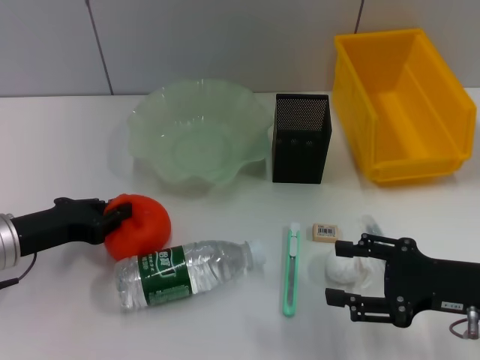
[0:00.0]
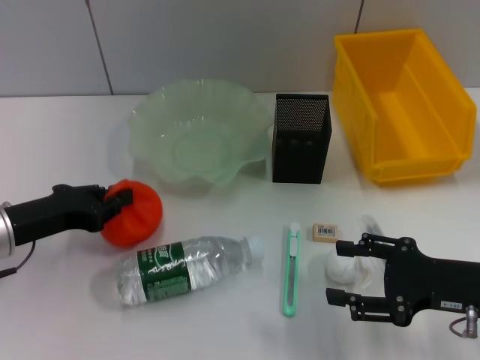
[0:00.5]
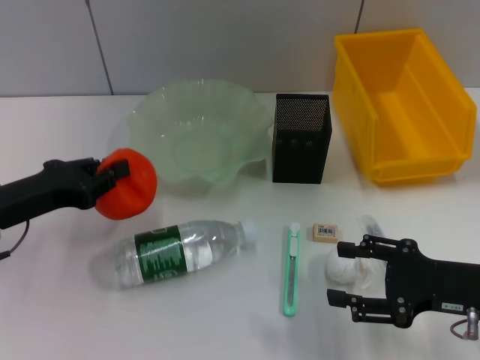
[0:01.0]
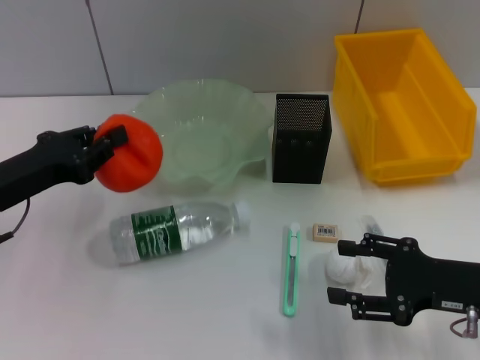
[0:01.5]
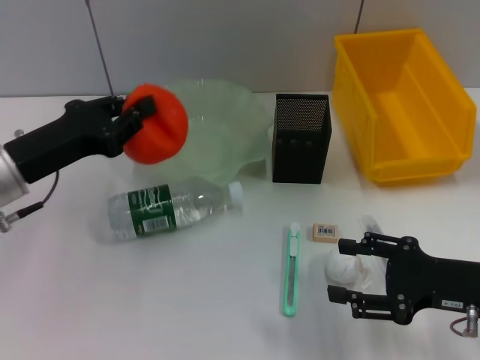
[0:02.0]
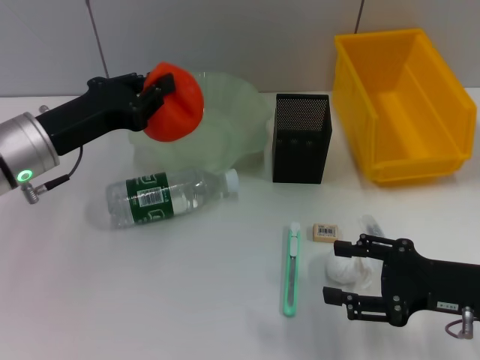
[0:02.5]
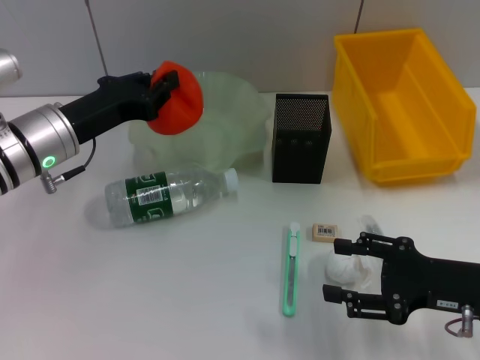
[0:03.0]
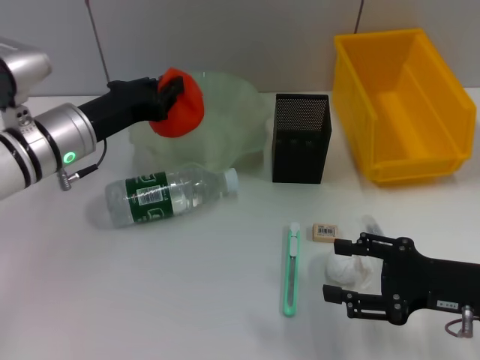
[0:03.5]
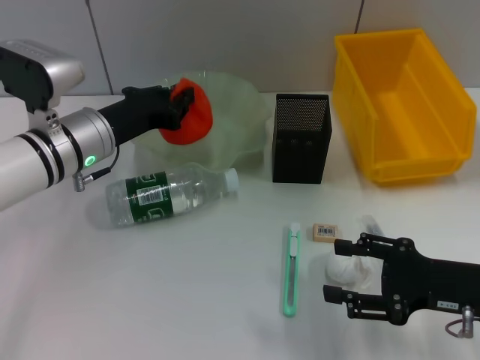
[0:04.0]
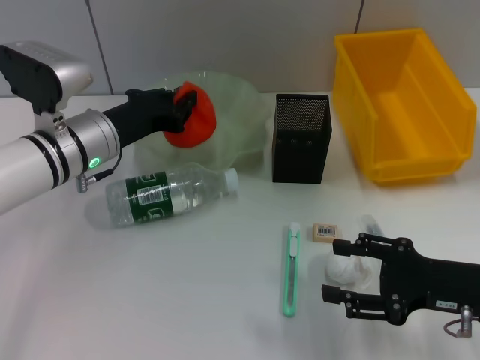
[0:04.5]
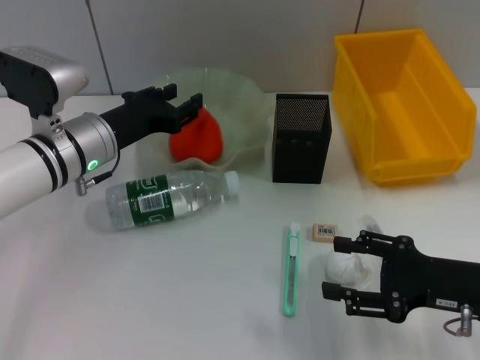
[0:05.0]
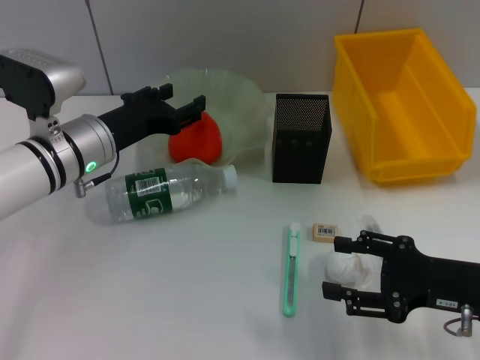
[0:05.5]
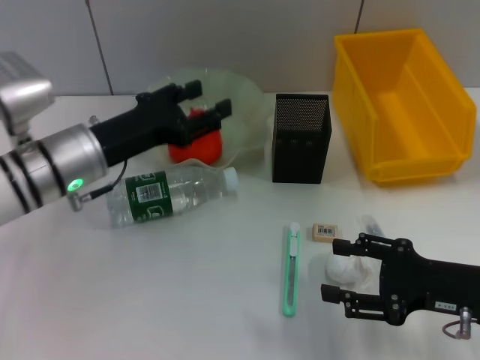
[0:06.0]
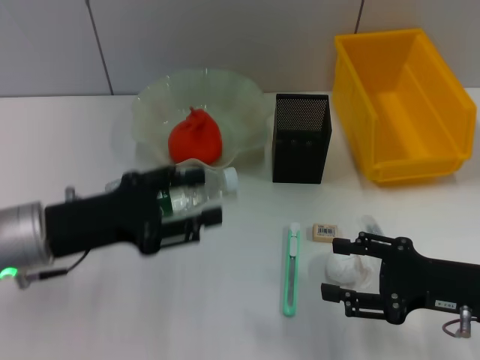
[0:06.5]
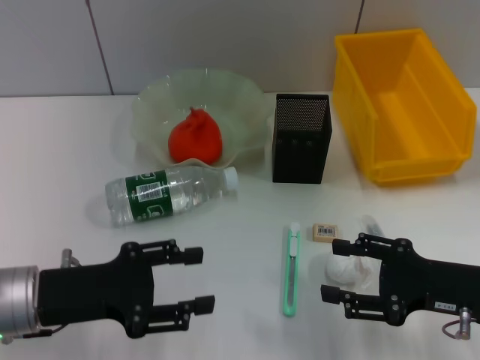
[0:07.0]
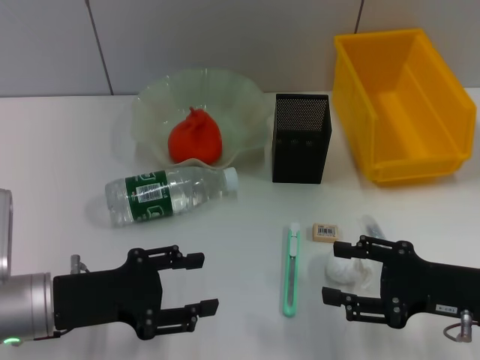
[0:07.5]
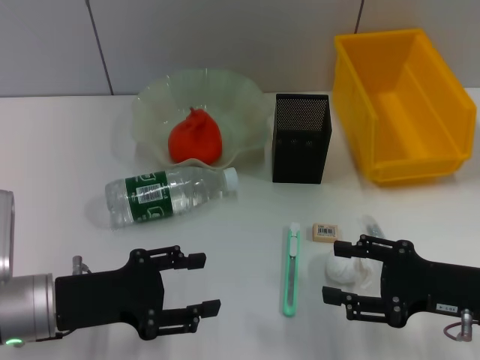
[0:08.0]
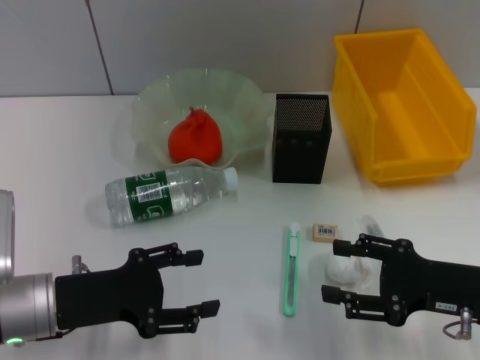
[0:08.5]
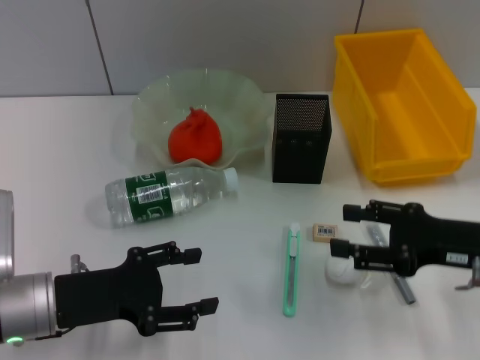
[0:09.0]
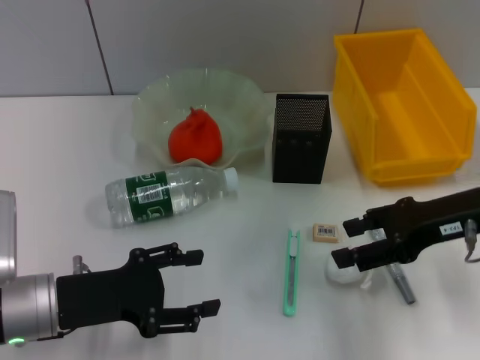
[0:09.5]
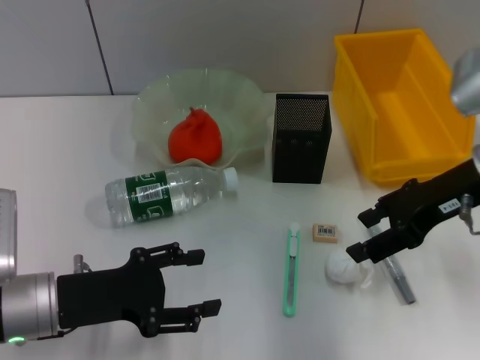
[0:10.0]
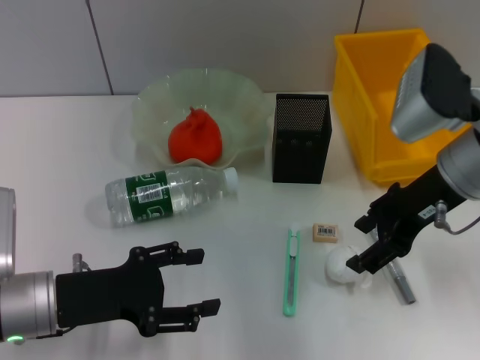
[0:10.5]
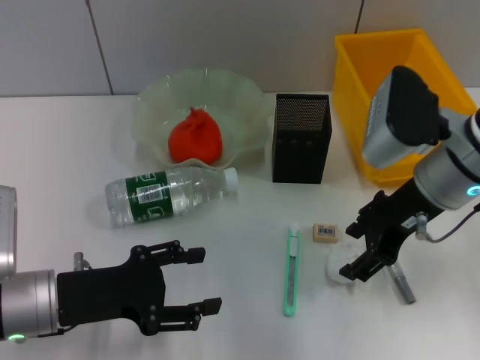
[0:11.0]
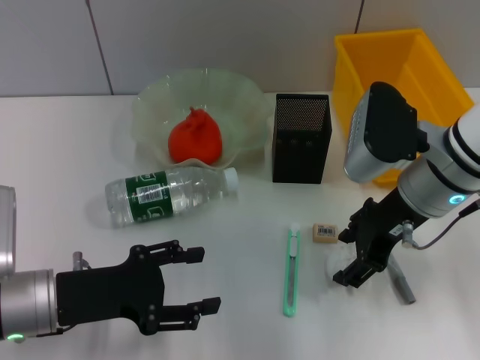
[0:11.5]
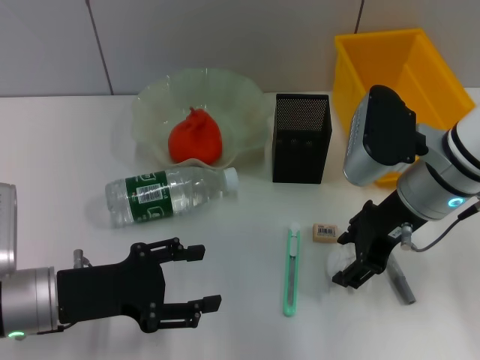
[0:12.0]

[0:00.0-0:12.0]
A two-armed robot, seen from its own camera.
Step, 0.5 to 5.0 s: Place the orange into the fruit bowl with the left hand.
0.0 to 2.0 s: The left gripper is displaced upward by roughly 5 cm.
2.0 to 4.0 s: The left gripper travels forward and to the right by roughly 10 cm.
4.0 to 6.0 s: The left gripper opens up.
6.0 to 8.0 s: The left gripper heads backward, covering approximately 10 cm.
8.0 to 10.0 s: The right gripper heads upward and forward, covering some 15 cm.
10.0 to 12.0 s: The right gripper shifts roughly 5 cm to the left.

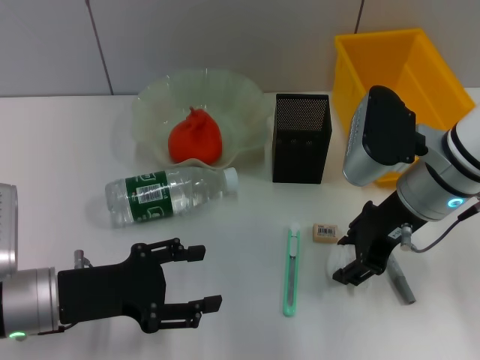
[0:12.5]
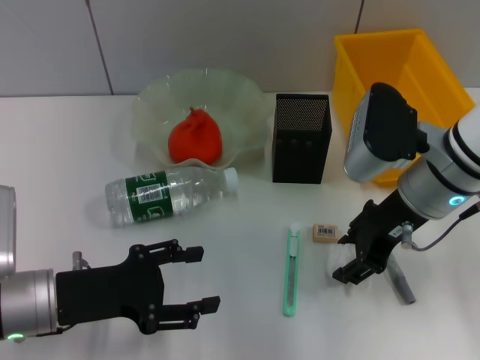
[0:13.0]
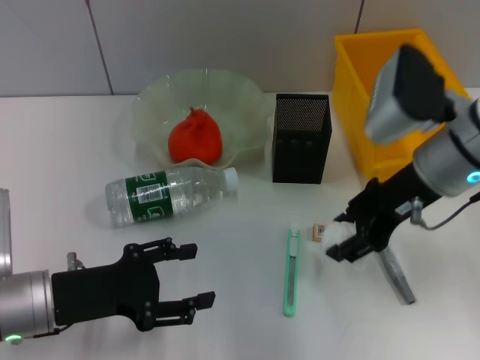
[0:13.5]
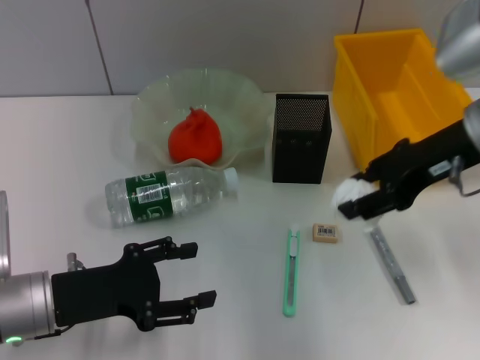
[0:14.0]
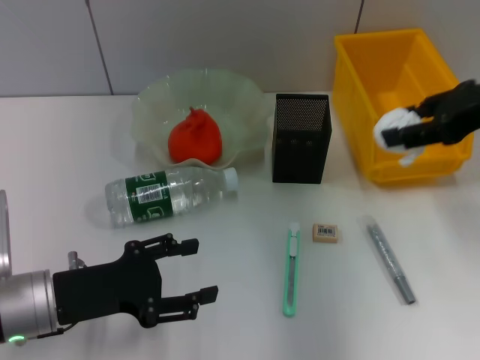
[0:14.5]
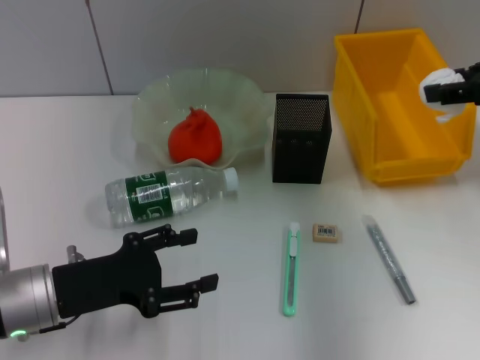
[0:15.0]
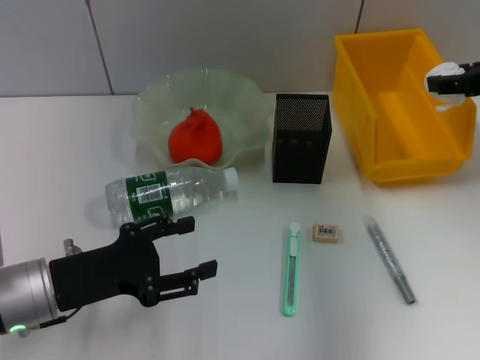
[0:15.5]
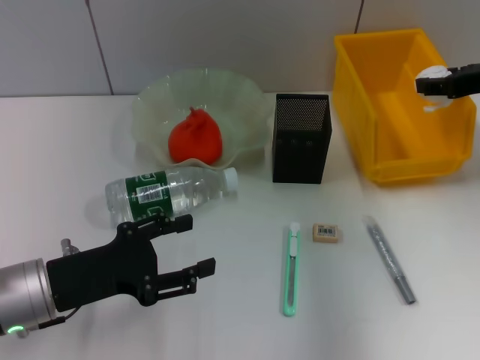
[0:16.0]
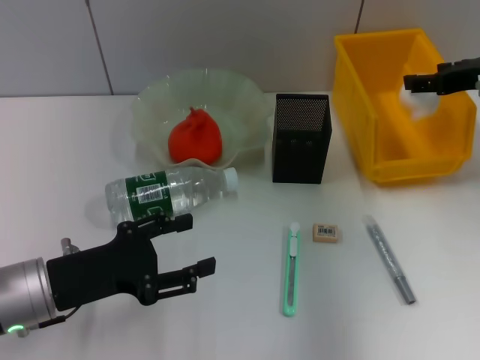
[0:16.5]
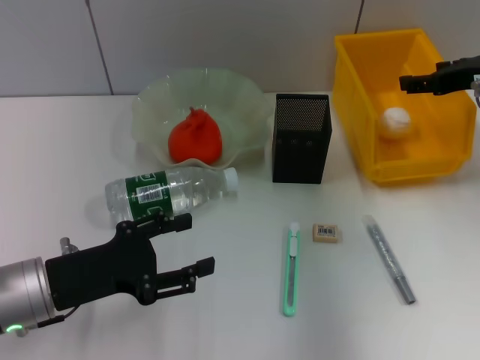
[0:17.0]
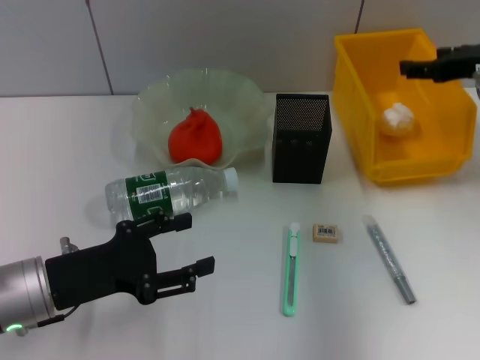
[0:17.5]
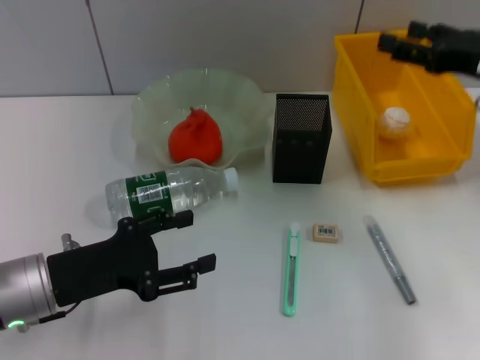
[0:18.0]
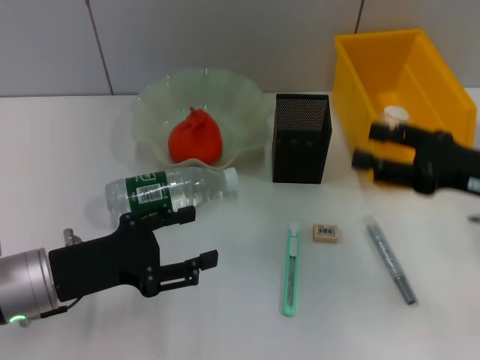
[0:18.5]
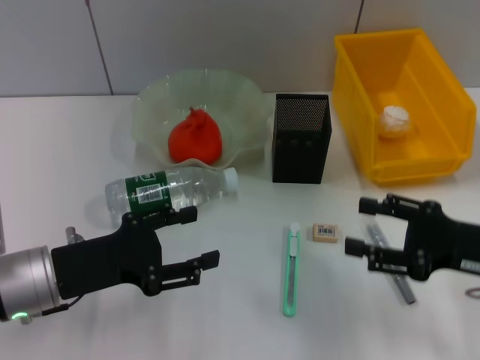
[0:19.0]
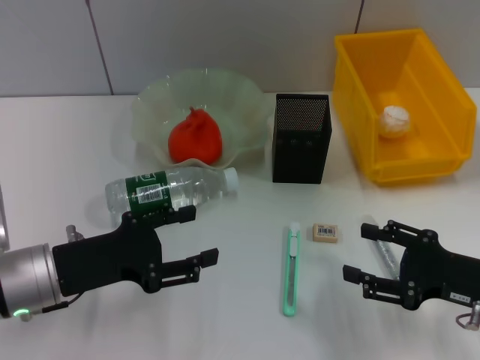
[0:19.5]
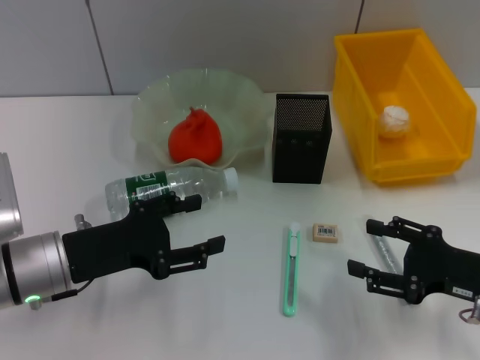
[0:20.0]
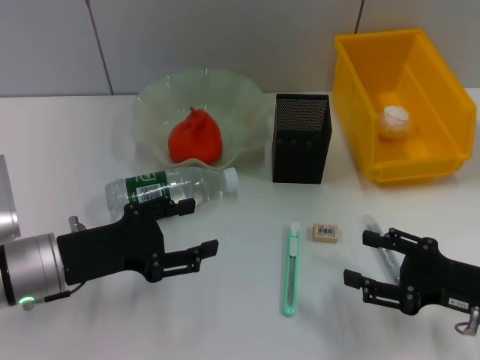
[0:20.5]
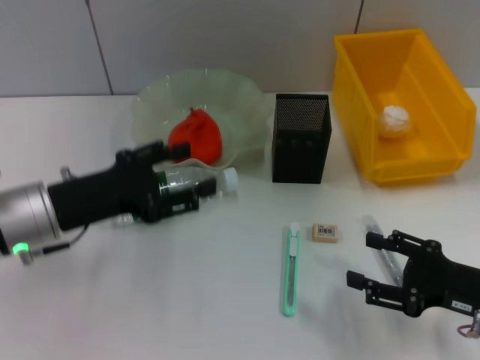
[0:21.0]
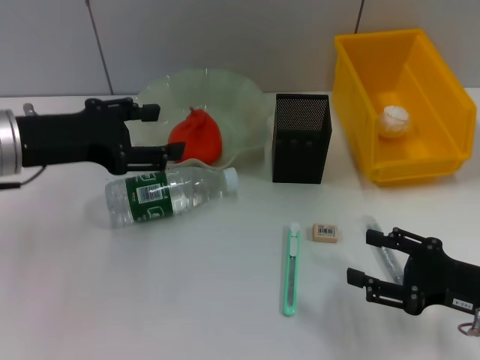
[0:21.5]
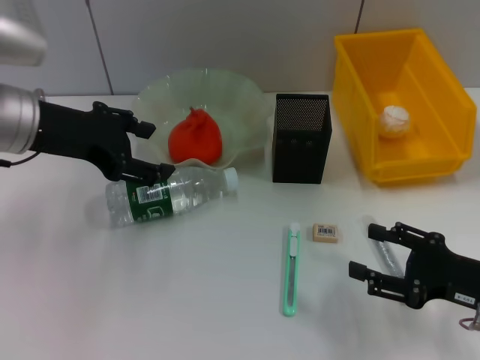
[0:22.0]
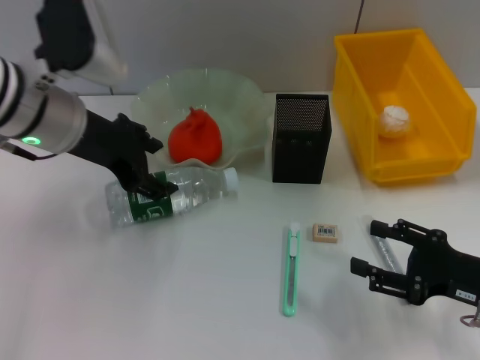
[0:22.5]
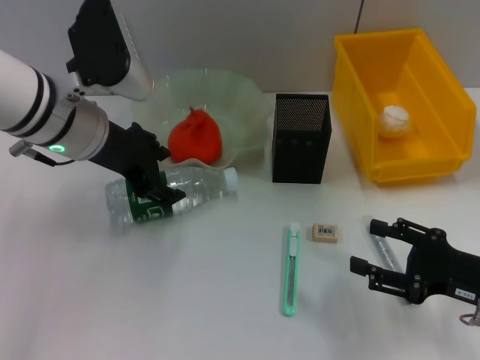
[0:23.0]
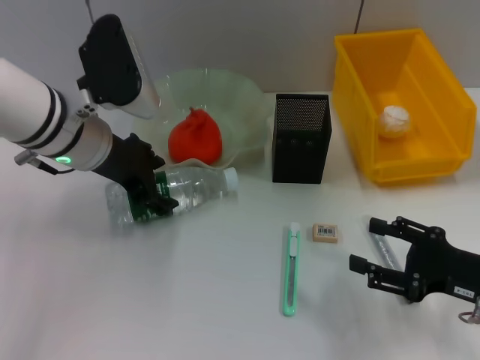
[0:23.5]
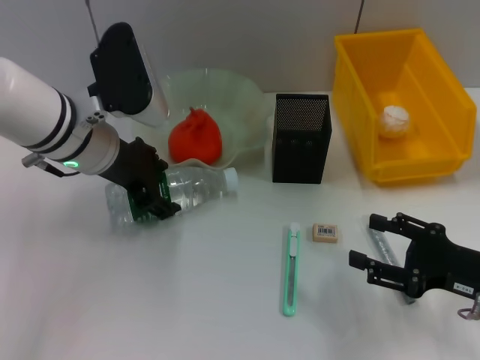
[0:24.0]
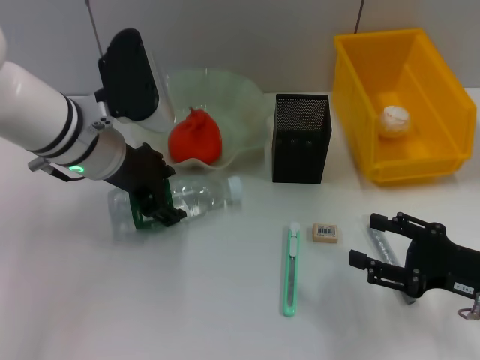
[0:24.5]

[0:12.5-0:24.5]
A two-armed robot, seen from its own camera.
Step, 12.5 to 16.5 s: Place the paper ball into the trash can with the right hand.
12.5 to 14.5 s: The right gripper heads to the right and upward, covering about 15 cm.
14.5 to 16.5 s: The right gripper moves forward and downward, some 10 cm.
16.5 to 18.5 s: The right gripper goes about 15 cm backward and downward.
18.5 to 20.5 s: The right gripper shifts roughly 10 cm downward and backward.
20.5 to 22.5 s: The left gripper travels upward and forward by approximately 15 cm.
22.5 to 24.5 s: The left gripper moves some 5 cm.

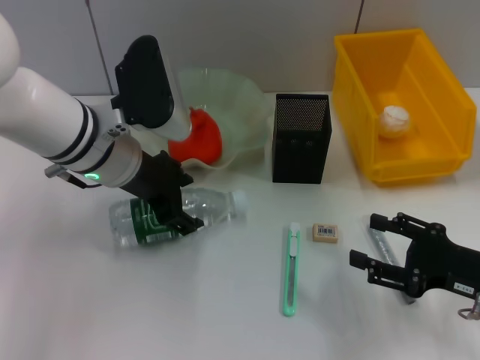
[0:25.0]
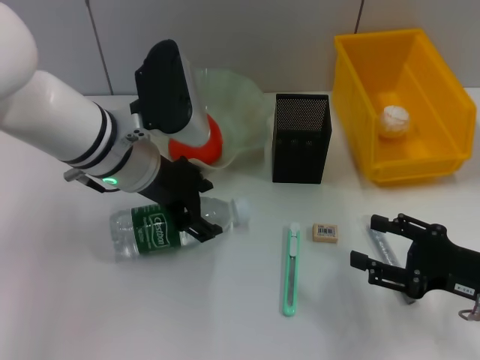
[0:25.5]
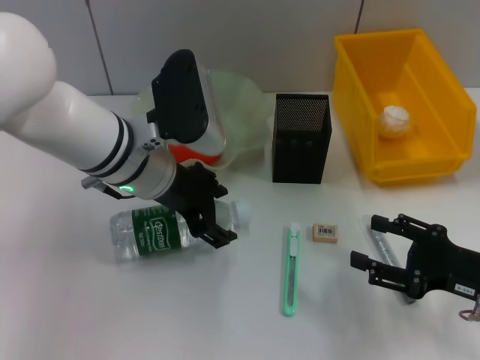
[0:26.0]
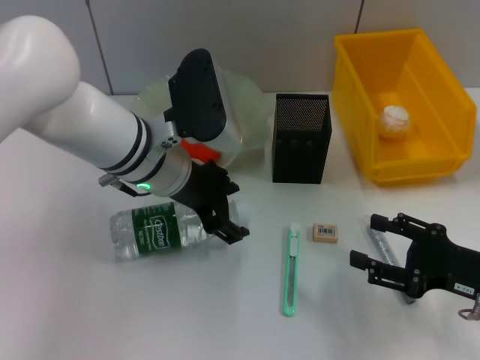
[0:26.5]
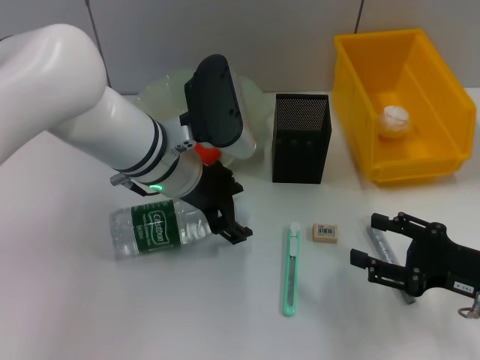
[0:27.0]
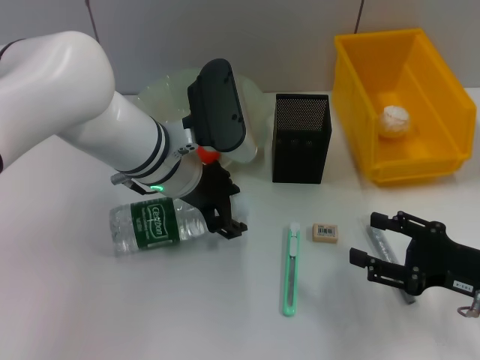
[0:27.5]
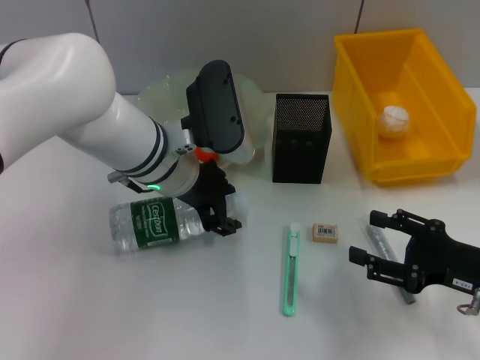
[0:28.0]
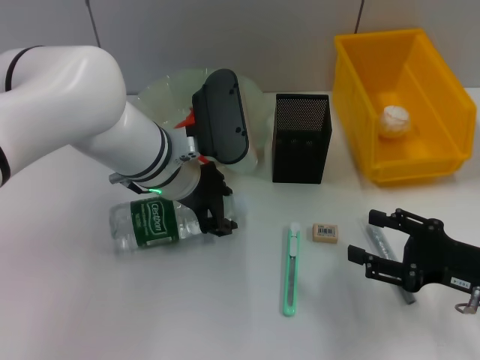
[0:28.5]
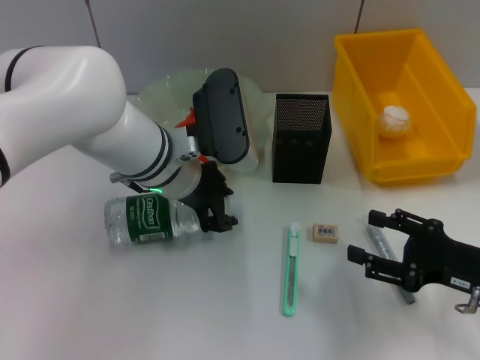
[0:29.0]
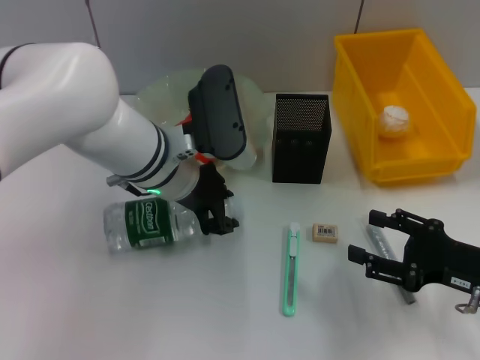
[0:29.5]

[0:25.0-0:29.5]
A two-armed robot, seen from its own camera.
Step, 25.0 to 29.0 s: Grab the water bottle with the left hand.
25.0 to 27.0 s: The left gripper moves to the right, about 5 cm.
27.0 to 29.5 s: The left gripper closes up.
